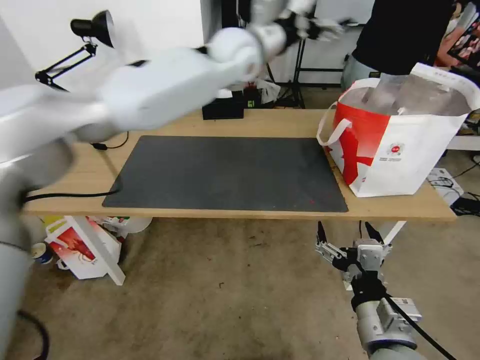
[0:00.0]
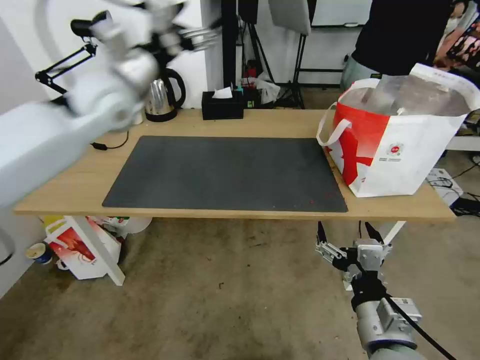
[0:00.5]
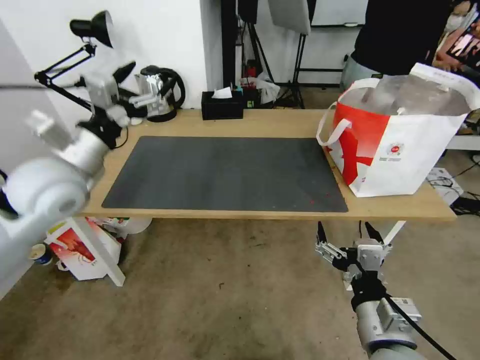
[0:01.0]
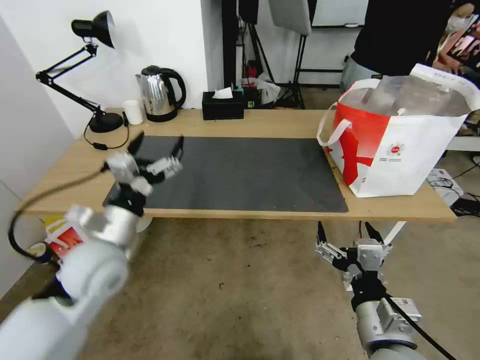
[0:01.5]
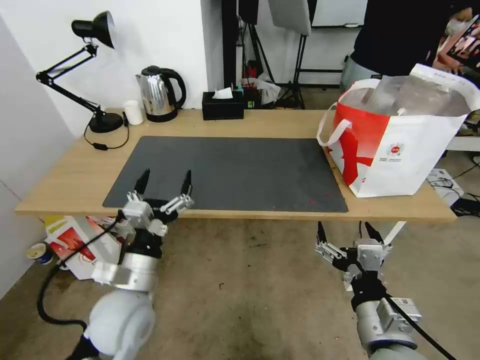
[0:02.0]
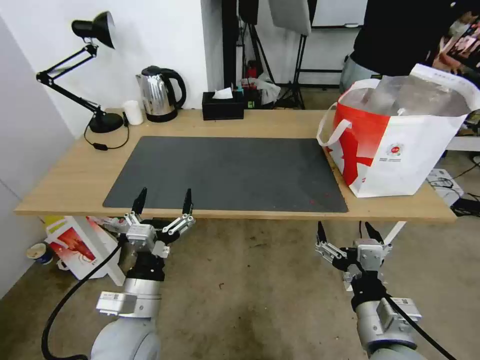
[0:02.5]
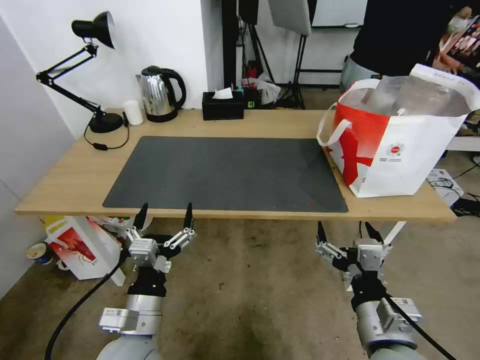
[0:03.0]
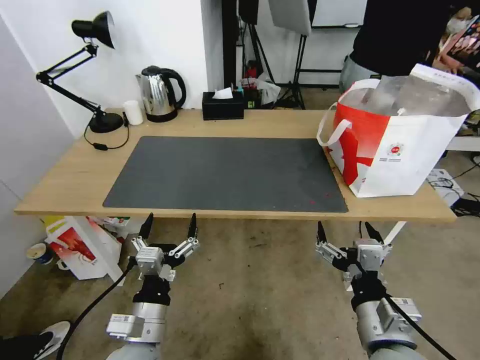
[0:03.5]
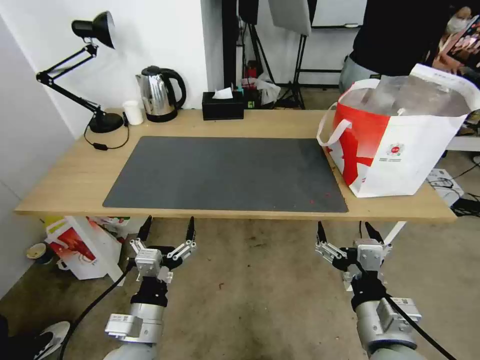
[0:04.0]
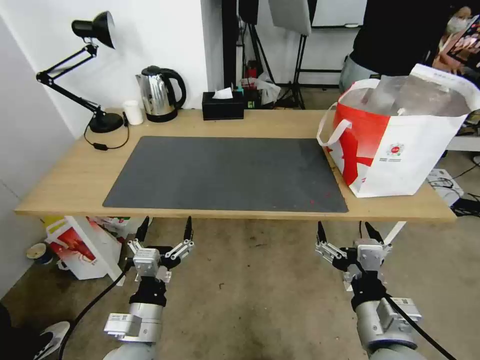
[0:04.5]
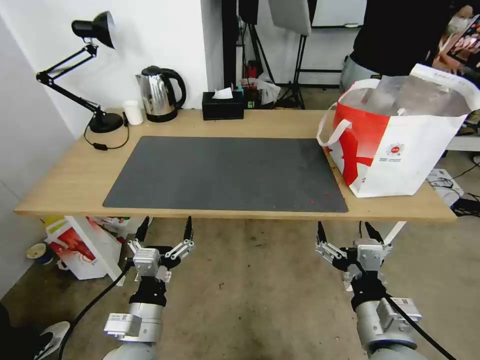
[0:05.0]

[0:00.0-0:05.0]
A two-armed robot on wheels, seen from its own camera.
Task of the whole recording: Pick up the trash from the table and place it into the takeout bag.
0:00.0 to 0:02.5: The left gripper moves backward, downward and to the left, some 50 cm.
0:02.5 to 0:05.0: There are only small adjustments of the grippers.
